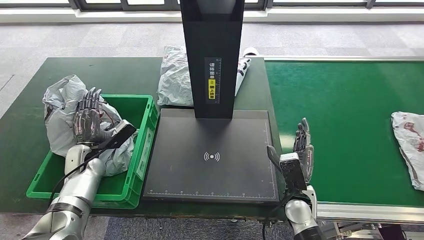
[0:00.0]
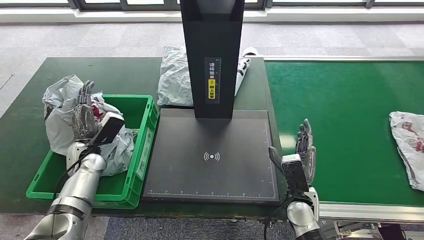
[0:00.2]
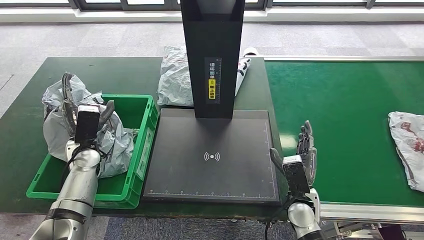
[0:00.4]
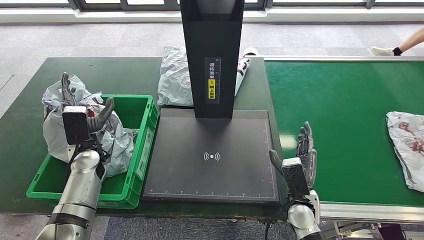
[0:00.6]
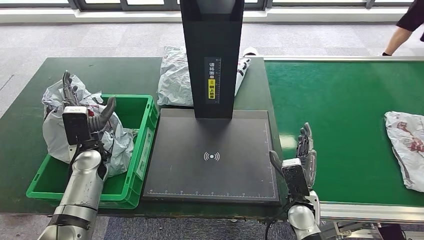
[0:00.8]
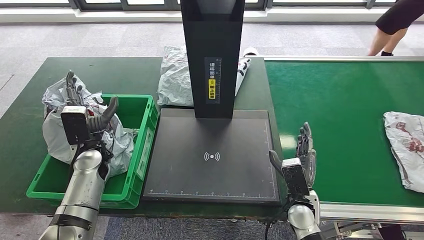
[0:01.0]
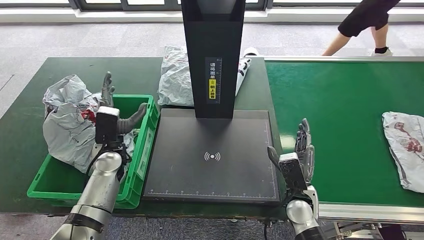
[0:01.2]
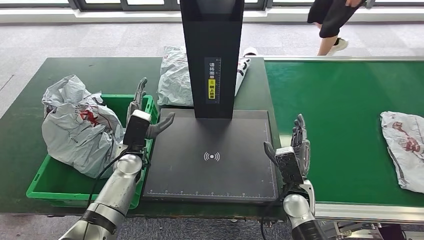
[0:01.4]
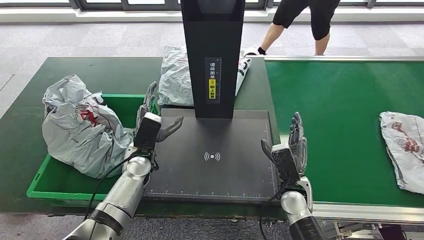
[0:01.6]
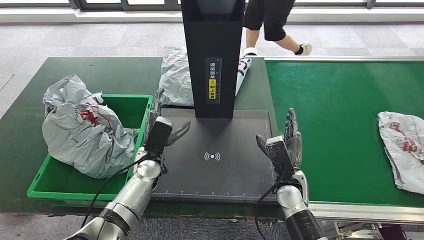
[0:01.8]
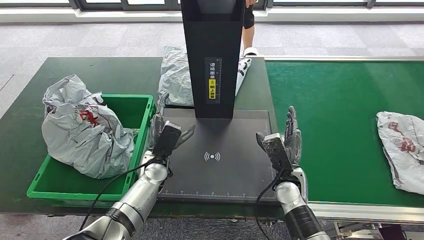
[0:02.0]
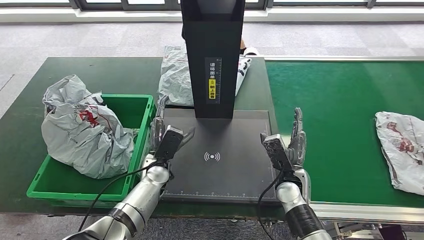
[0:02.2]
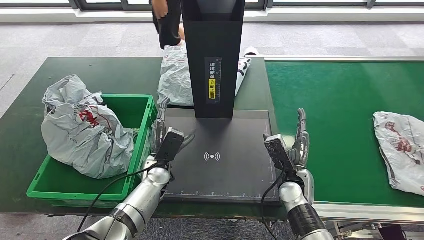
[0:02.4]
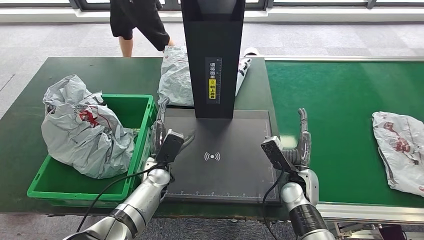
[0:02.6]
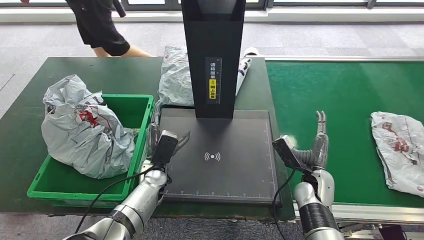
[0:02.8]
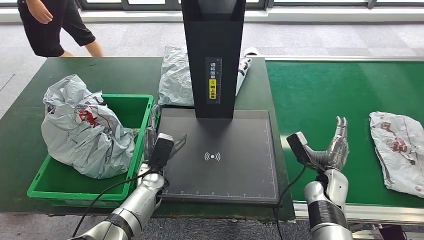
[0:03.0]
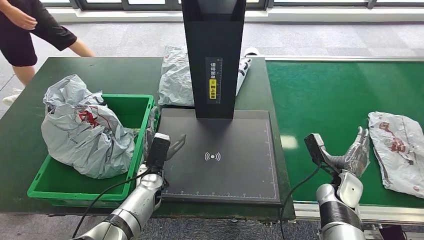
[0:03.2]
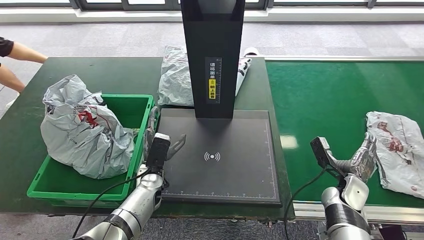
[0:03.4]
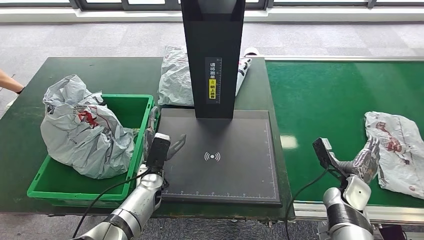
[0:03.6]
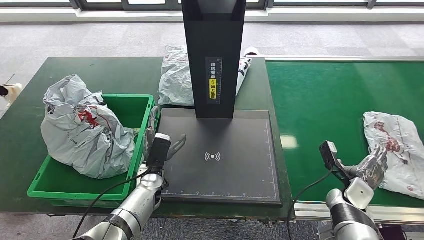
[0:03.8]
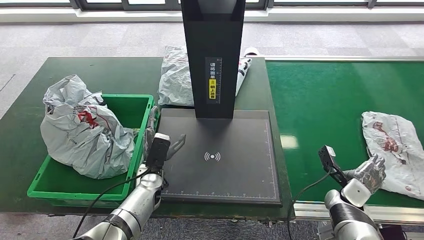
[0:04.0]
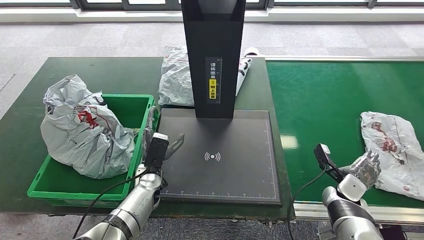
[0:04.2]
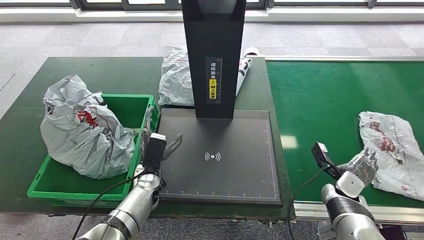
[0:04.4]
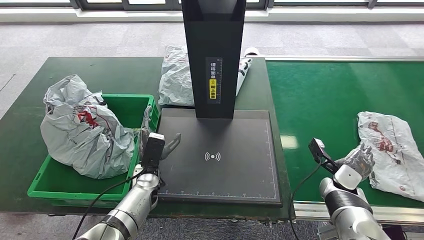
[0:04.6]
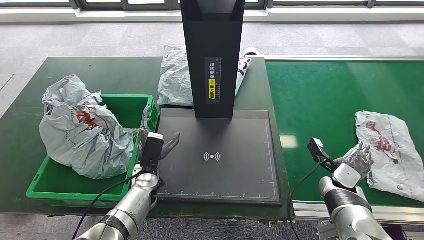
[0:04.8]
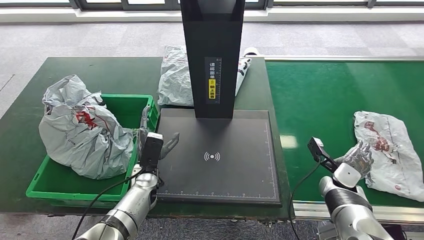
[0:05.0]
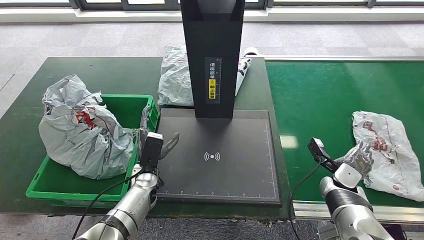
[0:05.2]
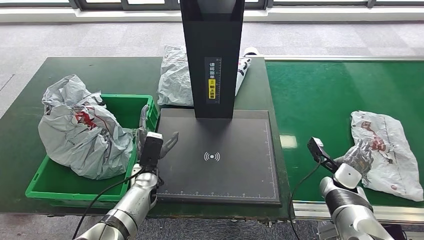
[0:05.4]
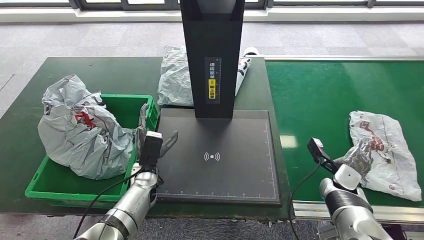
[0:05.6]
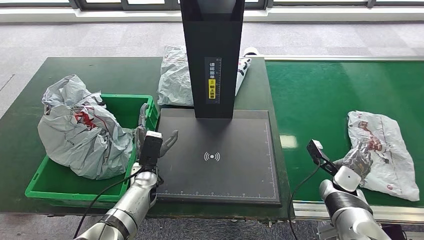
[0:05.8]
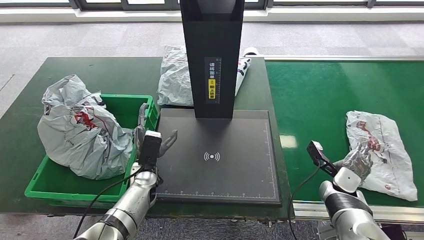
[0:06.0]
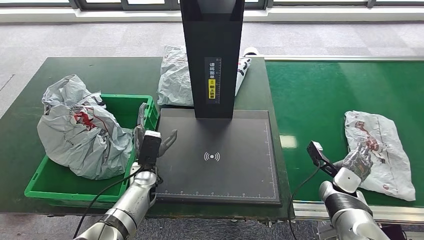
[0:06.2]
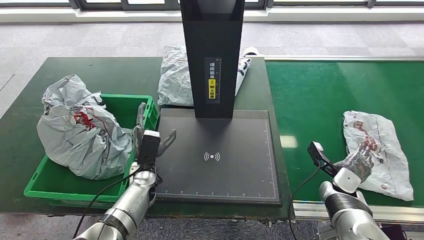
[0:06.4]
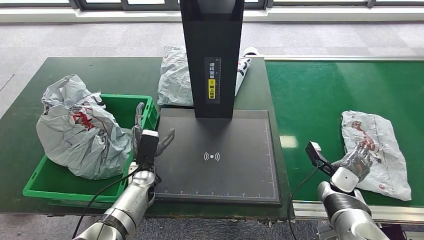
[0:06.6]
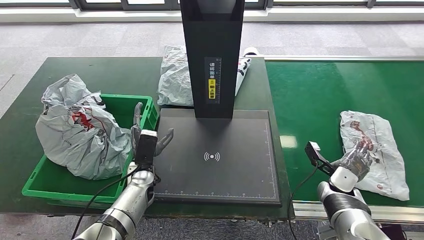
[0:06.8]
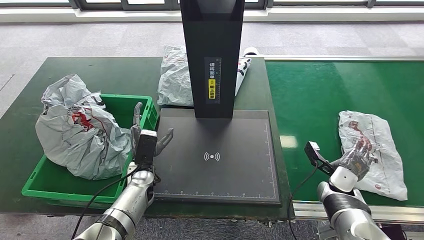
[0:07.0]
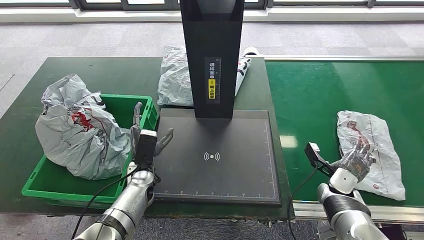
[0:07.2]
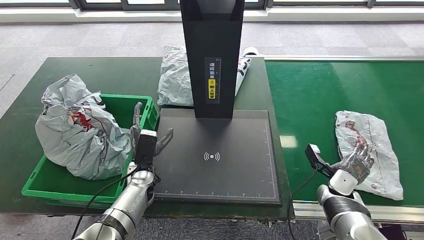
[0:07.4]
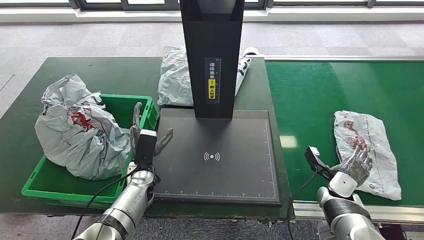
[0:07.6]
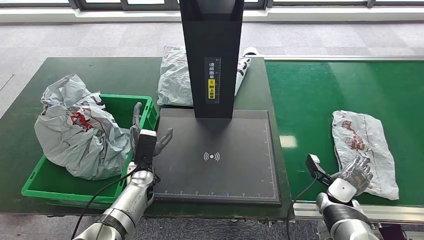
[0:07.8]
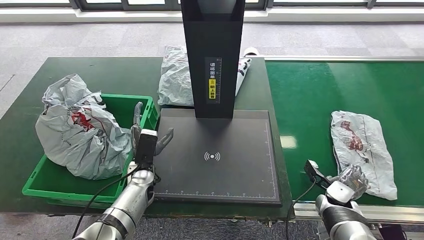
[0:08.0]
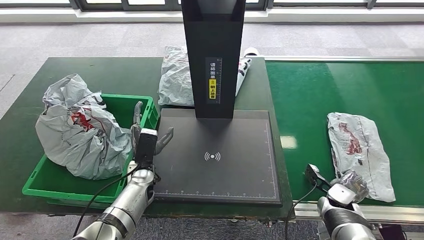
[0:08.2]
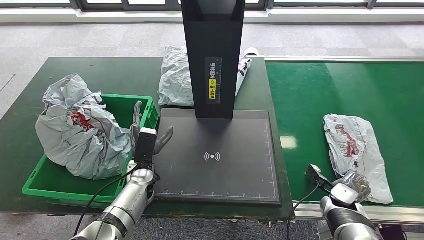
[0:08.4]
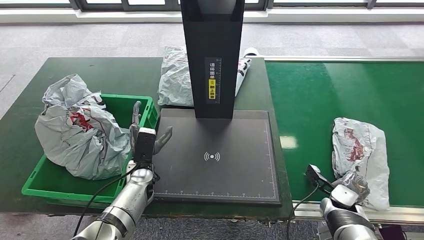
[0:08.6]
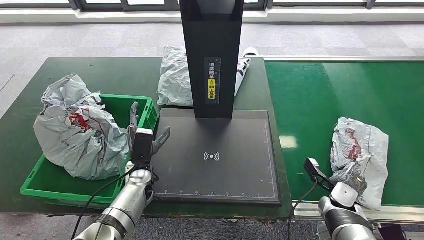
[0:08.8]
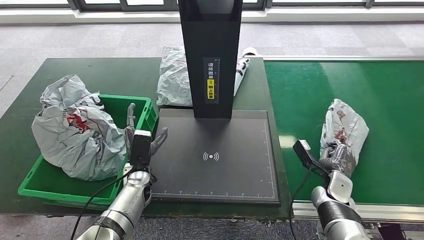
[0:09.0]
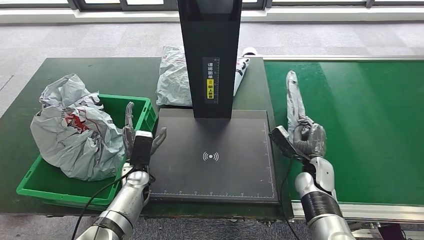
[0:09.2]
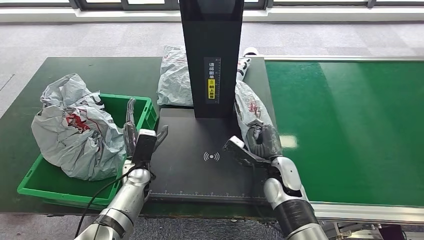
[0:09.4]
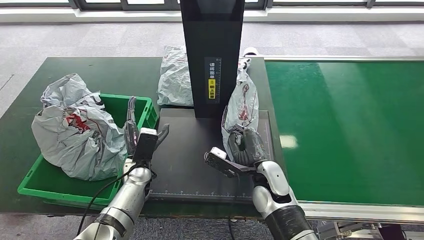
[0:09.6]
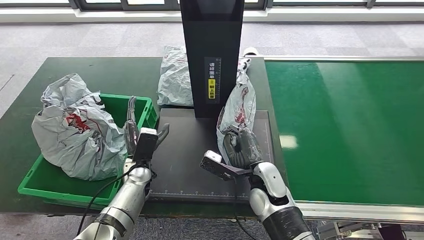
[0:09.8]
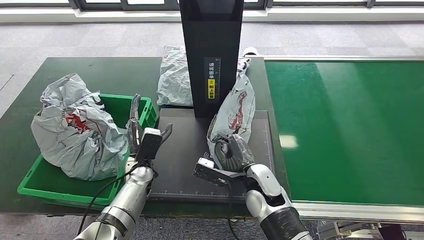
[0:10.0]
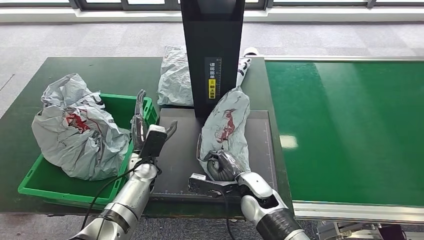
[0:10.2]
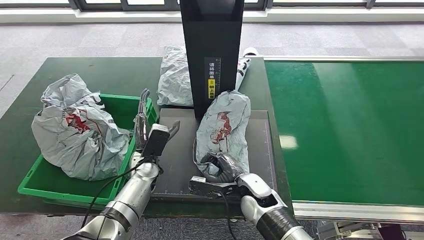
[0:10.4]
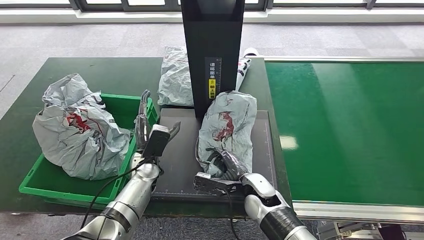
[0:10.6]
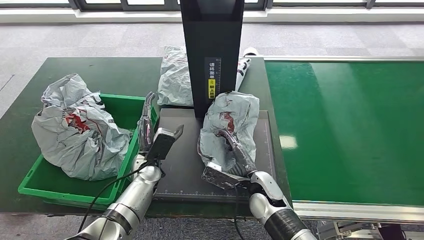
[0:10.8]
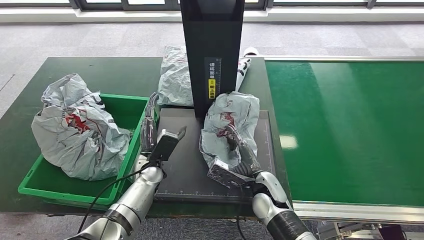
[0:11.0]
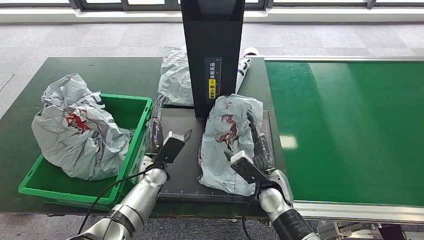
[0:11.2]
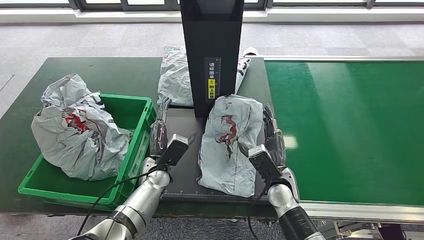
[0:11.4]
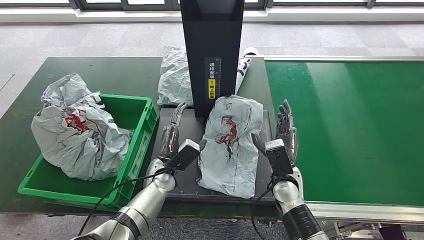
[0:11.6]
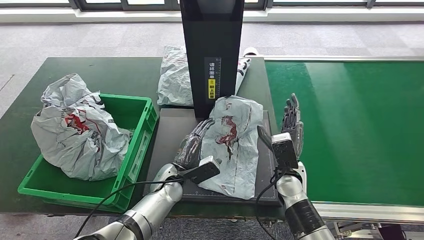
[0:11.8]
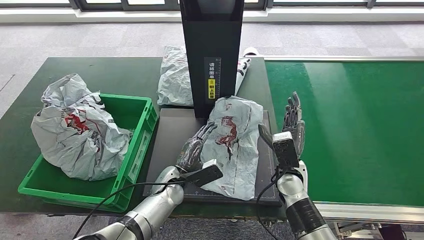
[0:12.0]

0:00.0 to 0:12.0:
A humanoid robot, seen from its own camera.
Step, 0:00.0 to 0:01.0: Place the parcel into the delivery box.
Step, 0:01.2 to 0:09.2: Pick up the parcel from the conveyor belt.
Step, 0:09.6 to 0:11.6: Place the parcel onto the inbound machine.
0:00.0 to 0:01.6: The left hand moves to the right, roughly 20 cm.
0:03.0 to 0:04.4: The right hand goes about 5 cm to the right.
0:04.4 to 0:07.6: There are only small adjustments of the hands.
0:09.0 to 0:10.4: The right hand shifts approximately 20 cm to the left.
0:10.4 to 0:12.0: Both hands travel together to the right, about 10 cm.

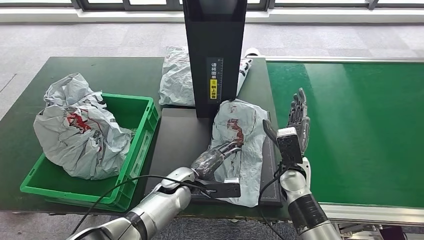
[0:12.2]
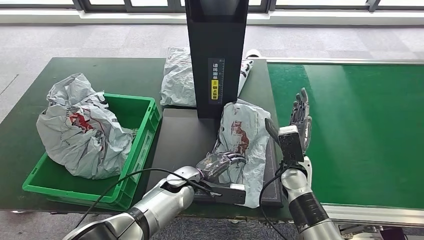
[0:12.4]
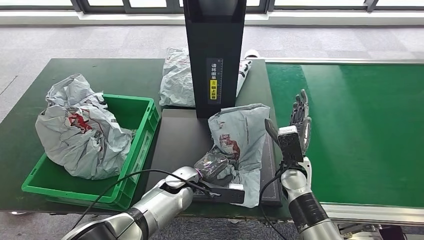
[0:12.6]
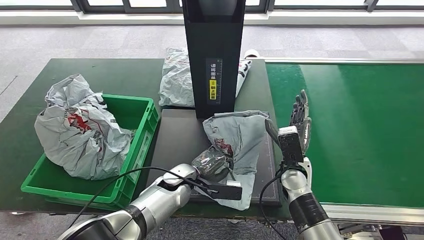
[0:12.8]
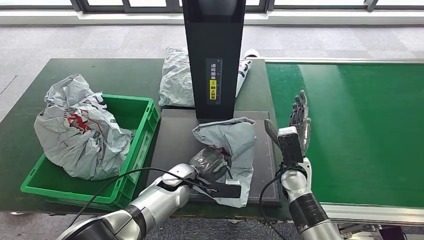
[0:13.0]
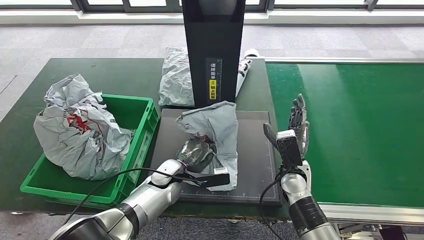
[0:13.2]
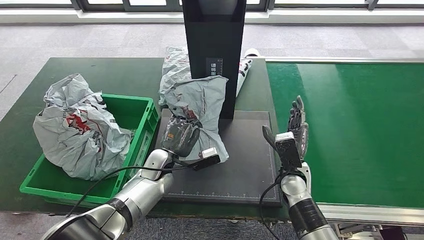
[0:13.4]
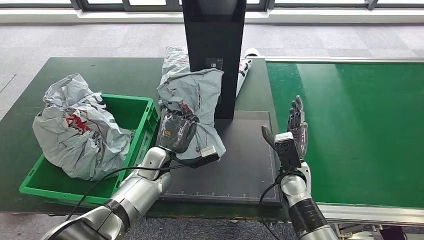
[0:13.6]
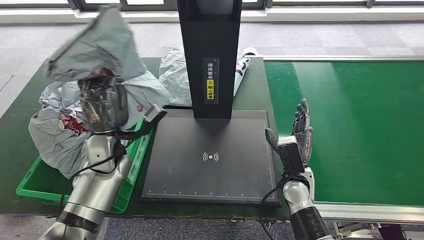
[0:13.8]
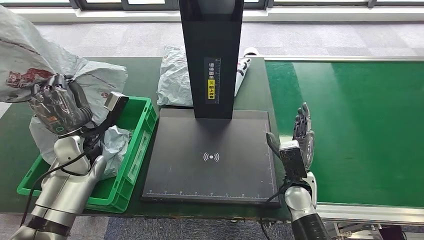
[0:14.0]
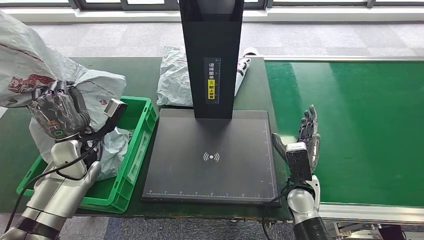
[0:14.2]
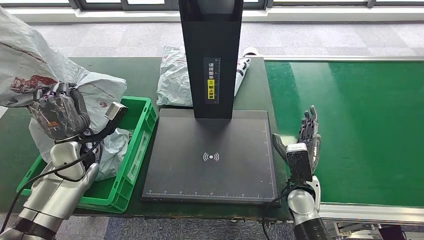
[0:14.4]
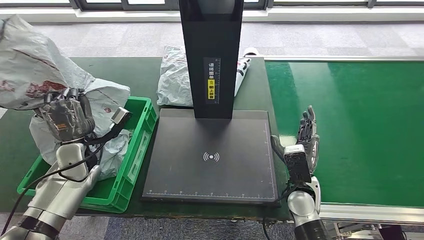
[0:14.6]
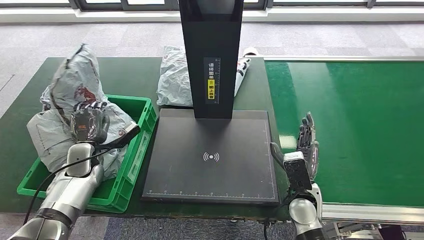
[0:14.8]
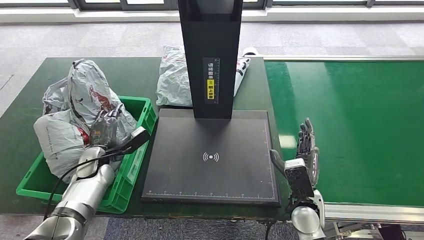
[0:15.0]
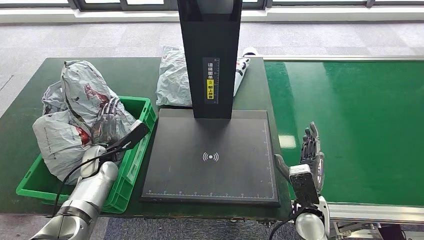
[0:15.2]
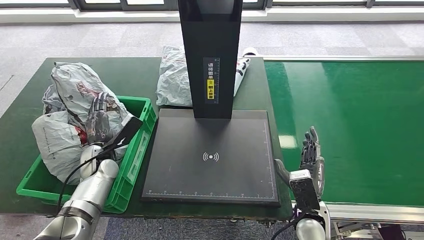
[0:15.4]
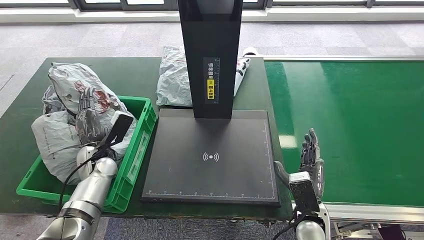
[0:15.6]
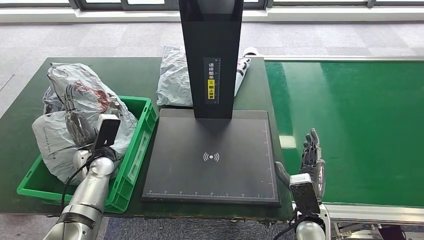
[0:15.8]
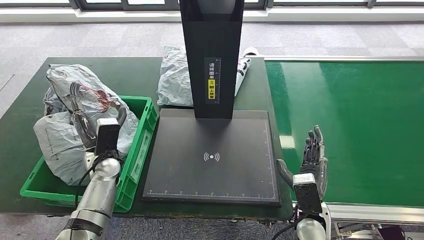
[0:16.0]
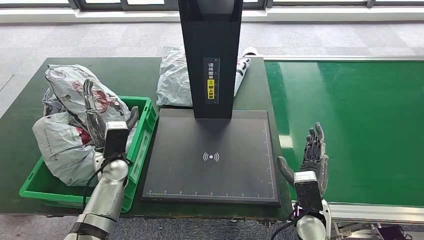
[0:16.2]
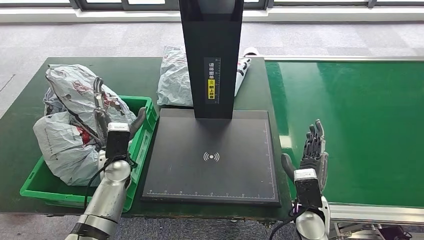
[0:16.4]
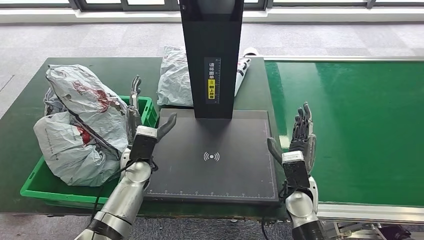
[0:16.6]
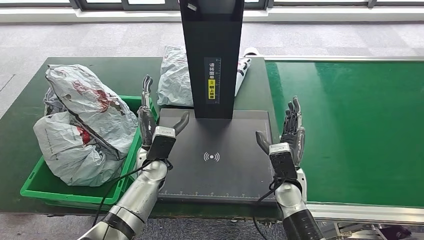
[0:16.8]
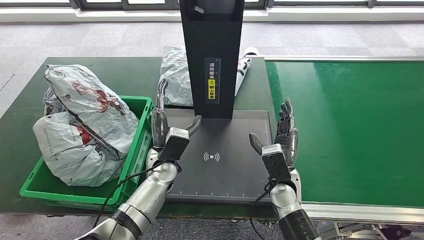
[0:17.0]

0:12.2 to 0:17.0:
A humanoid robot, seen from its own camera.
Step, 0:12.2 to 0:13.6: Pick up the parcel from the inbound machine.
Step, 0:13.8 to 0:17.0: Place the parcel into the delivery box.
